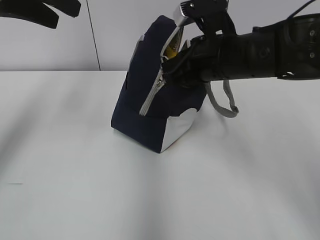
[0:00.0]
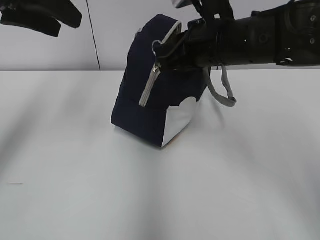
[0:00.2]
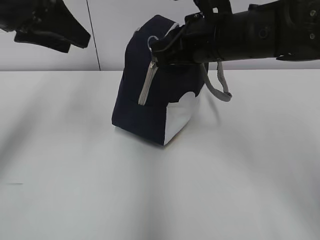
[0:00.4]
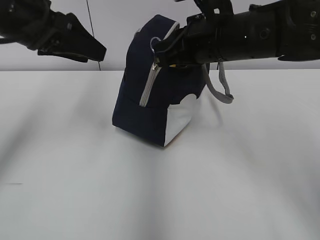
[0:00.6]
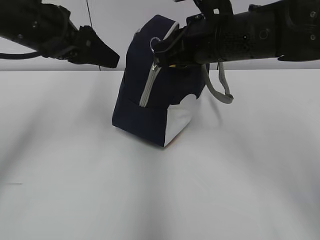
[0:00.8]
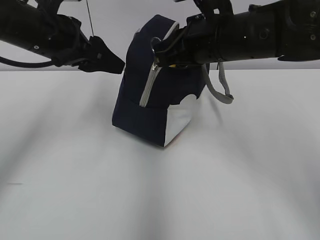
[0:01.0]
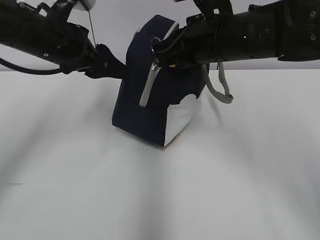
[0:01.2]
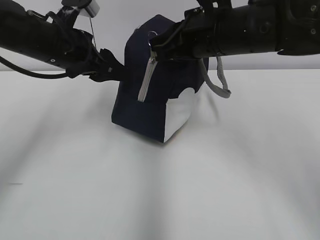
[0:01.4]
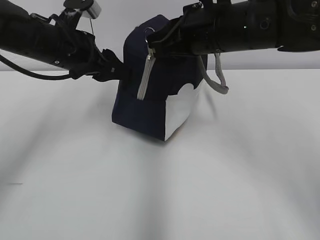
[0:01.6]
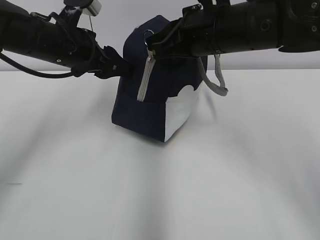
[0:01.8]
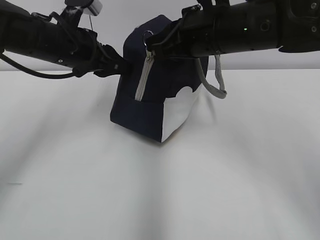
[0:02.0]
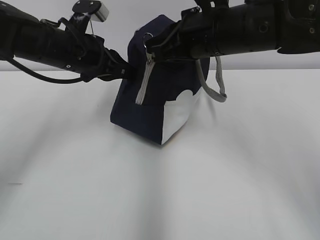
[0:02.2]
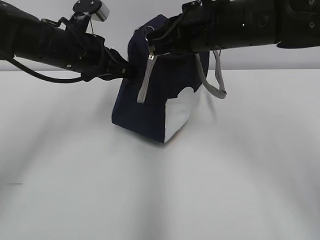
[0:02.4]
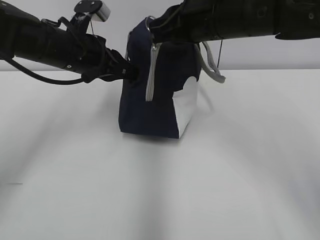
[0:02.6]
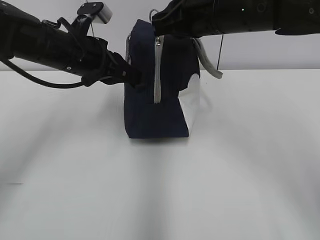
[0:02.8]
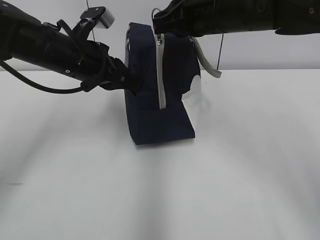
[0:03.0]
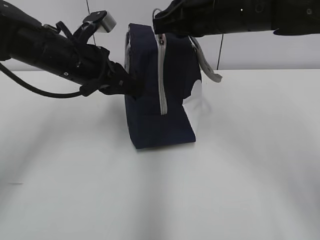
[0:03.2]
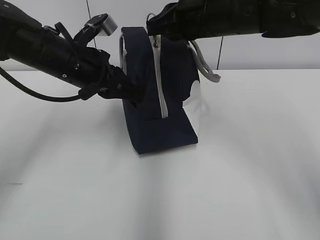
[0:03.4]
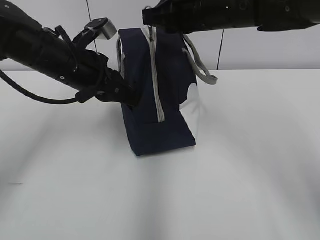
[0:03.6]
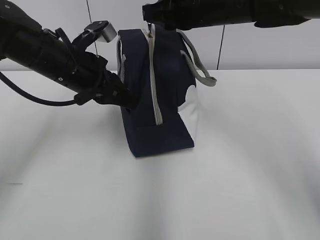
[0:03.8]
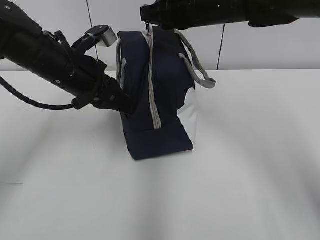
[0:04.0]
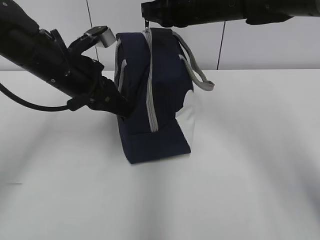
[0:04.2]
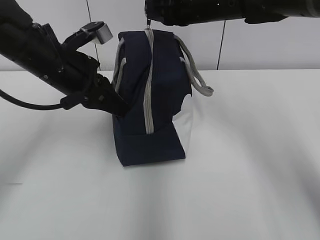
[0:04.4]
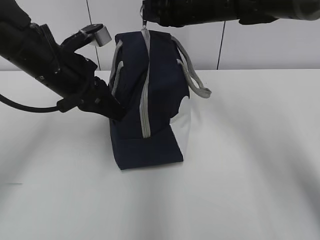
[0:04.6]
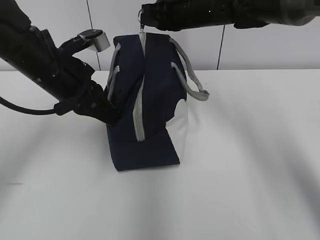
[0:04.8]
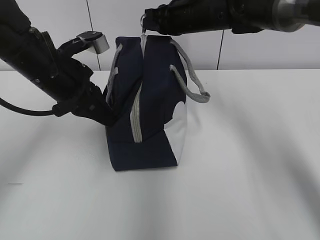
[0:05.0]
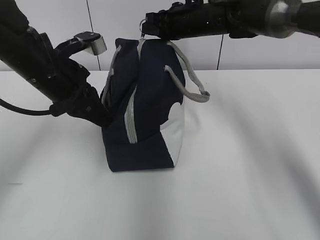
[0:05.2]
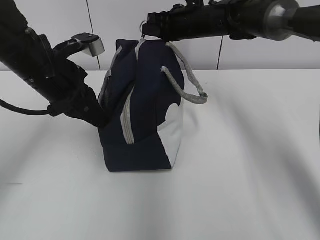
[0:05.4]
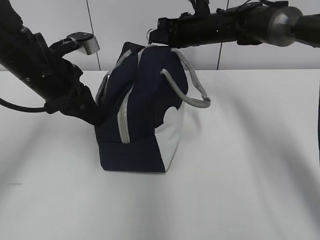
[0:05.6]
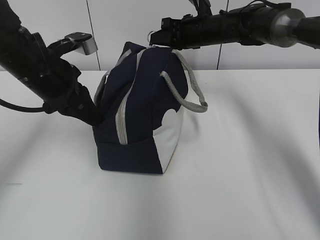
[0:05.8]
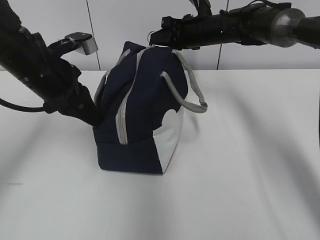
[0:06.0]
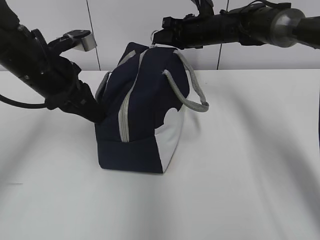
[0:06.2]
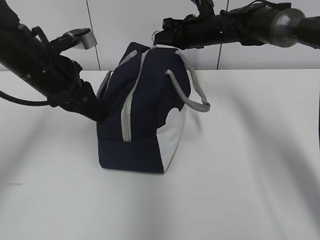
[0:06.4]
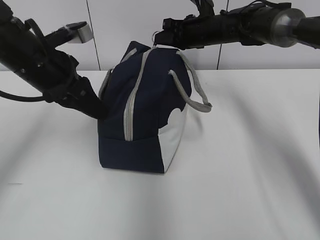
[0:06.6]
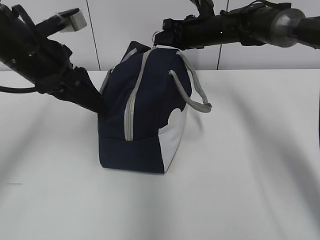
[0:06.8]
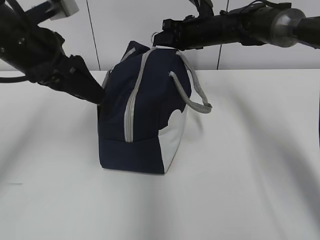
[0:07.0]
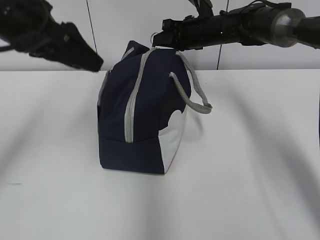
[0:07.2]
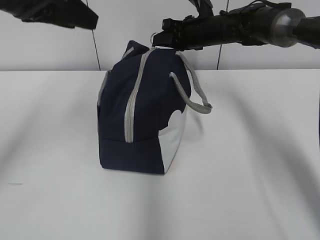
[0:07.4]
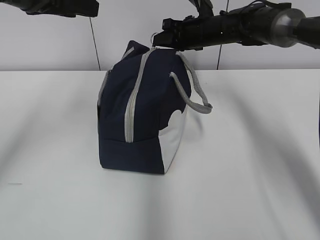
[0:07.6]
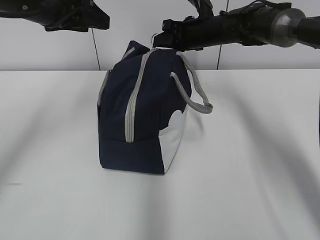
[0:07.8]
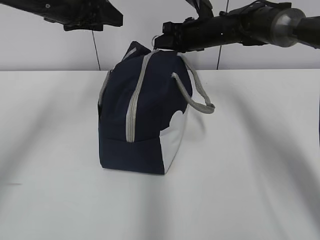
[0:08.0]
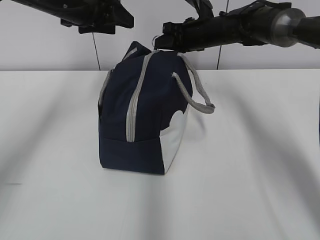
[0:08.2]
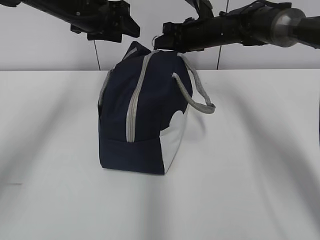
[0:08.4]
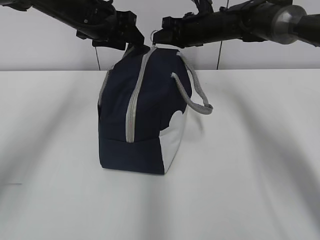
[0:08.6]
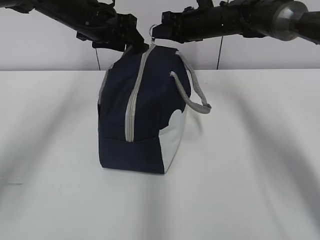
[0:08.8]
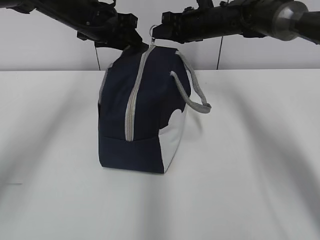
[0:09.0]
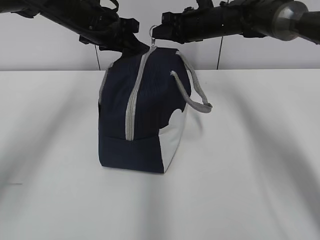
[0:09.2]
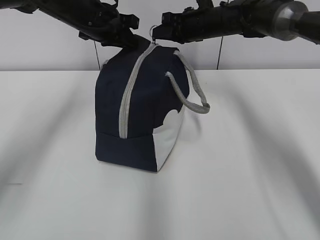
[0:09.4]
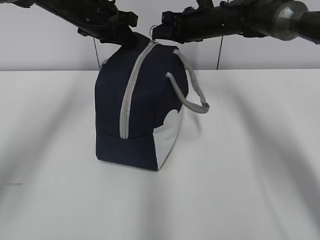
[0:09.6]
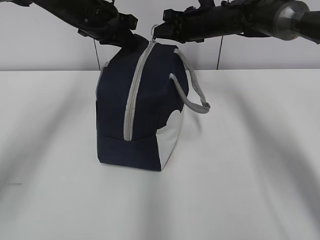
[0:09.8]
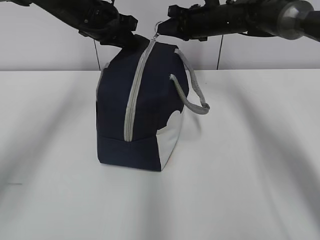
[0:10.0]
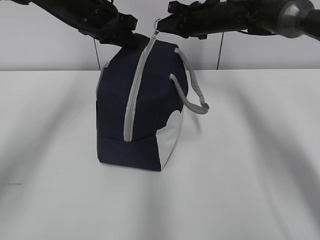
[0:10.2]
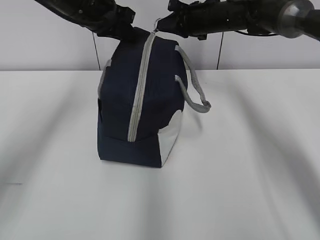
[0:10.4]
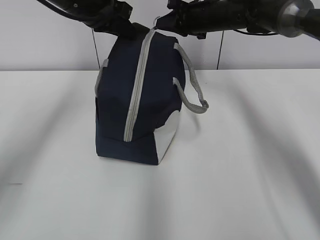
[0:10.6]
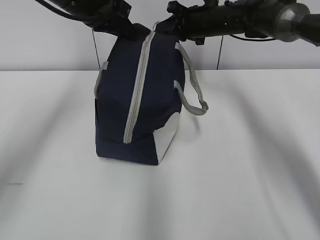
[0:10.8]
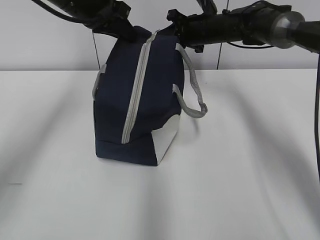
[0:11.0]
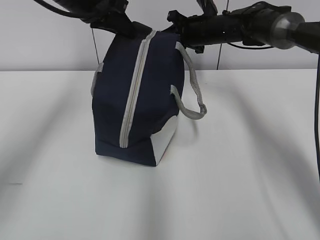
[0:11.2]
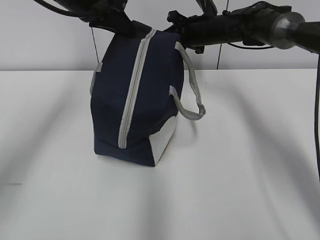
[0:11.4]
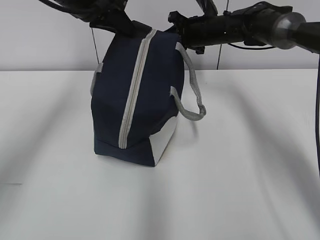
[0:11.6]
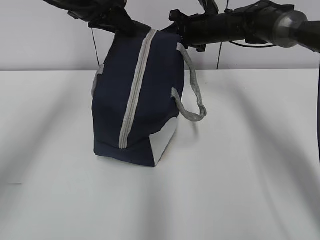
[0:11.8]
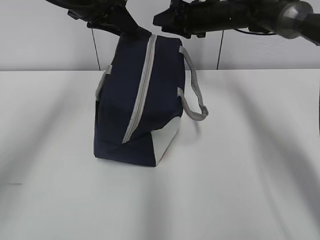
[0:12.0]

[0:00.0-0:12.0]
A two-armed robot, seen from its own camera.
0:00.0 to 0:01.6: The left gripper shifts some 15 cm downward.
0:01.6 to 0:03.0: The left gripper closes up.
0:03.0 to 0:04.4: The right gripper shifts roughly 10 cm forward.
0:04.4 to 0:06.0: The right gripper travels forward and downward by approximately 10 cm.
0:06.0 to 0:07.6: The left gripper travels upward by roughly 10 cm, and opens.
0:07.6 to 0:09.0: The left gripper is displaced forward, downward and to the right by about 15 cm.
0:09.0 to 0:10.4: The left gripper closes.
0:10.4 to 0:12.0: The right gripper opens up. The left gripper opens its fingers.

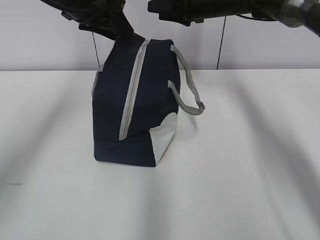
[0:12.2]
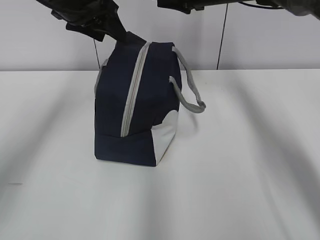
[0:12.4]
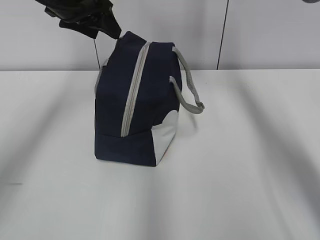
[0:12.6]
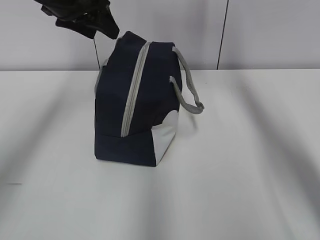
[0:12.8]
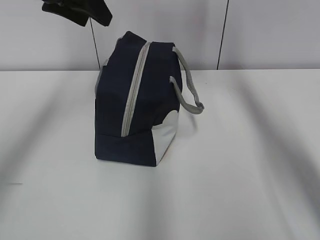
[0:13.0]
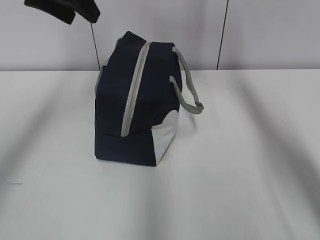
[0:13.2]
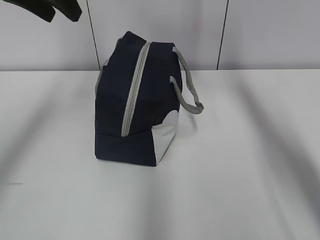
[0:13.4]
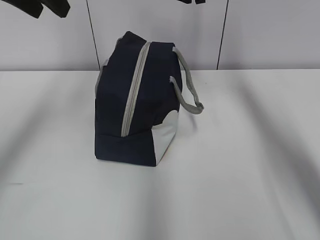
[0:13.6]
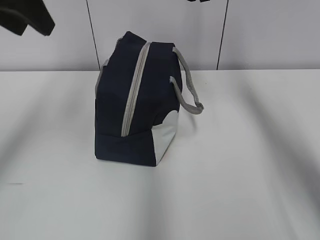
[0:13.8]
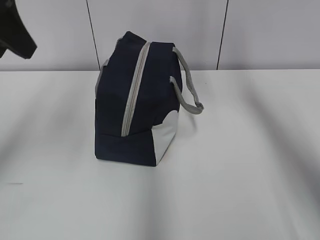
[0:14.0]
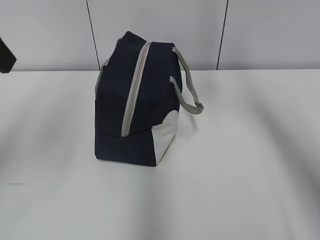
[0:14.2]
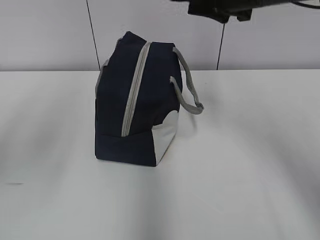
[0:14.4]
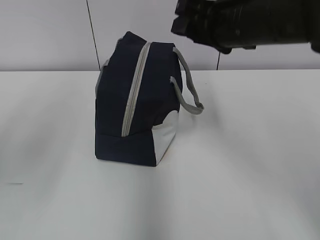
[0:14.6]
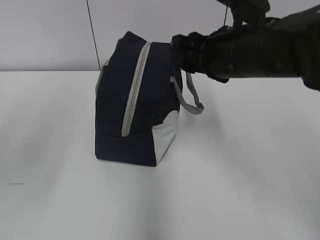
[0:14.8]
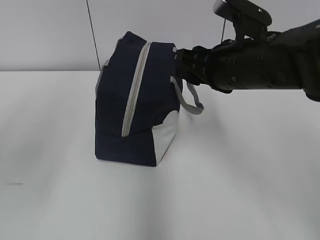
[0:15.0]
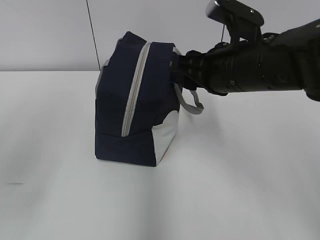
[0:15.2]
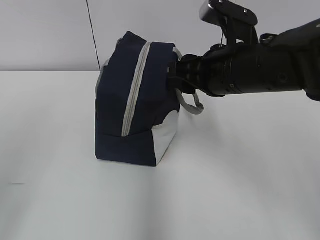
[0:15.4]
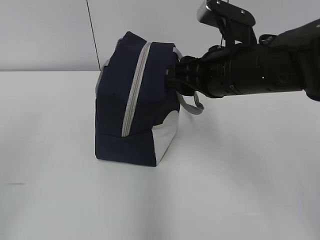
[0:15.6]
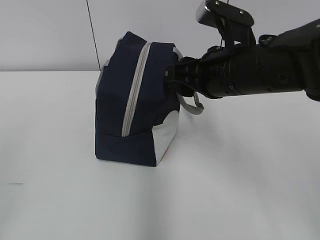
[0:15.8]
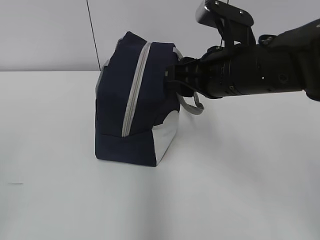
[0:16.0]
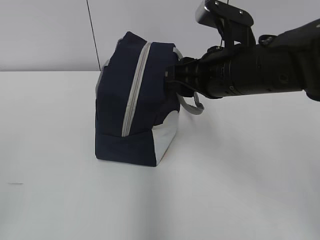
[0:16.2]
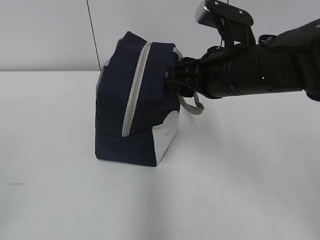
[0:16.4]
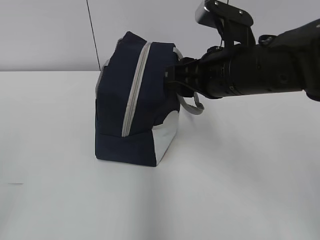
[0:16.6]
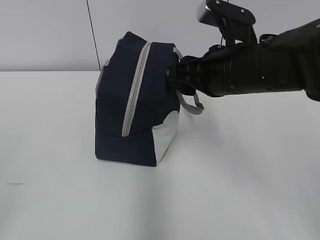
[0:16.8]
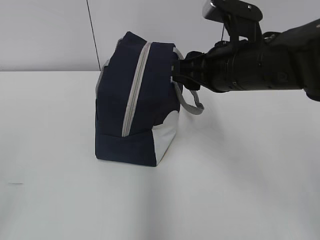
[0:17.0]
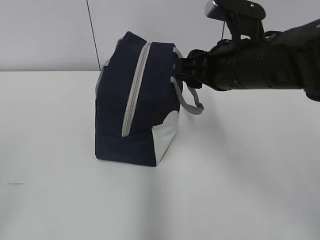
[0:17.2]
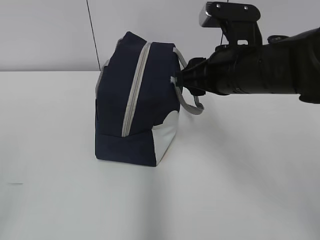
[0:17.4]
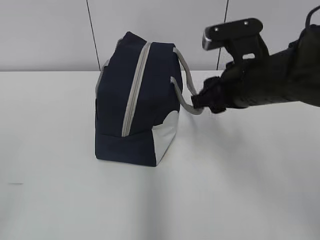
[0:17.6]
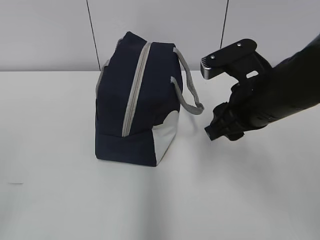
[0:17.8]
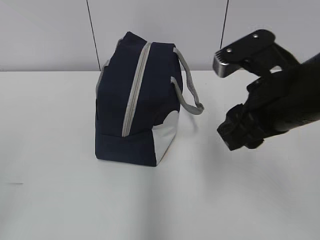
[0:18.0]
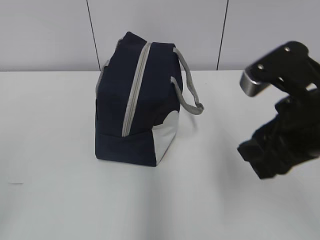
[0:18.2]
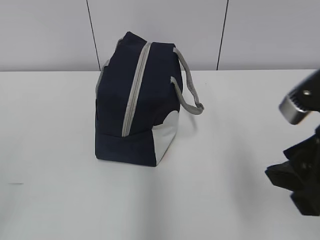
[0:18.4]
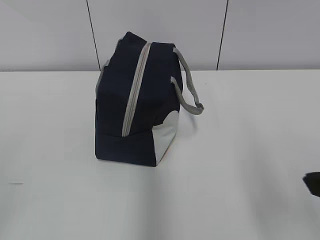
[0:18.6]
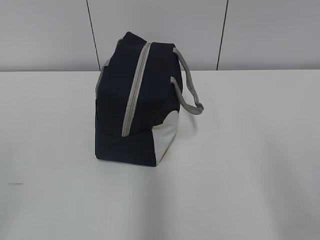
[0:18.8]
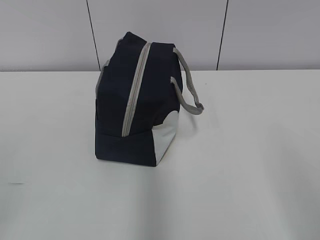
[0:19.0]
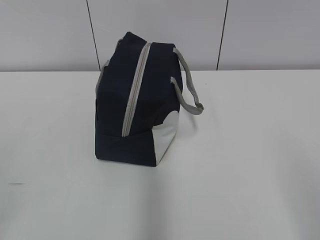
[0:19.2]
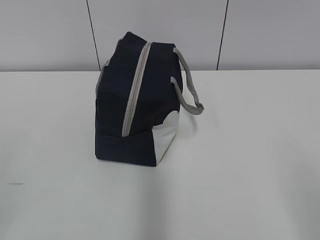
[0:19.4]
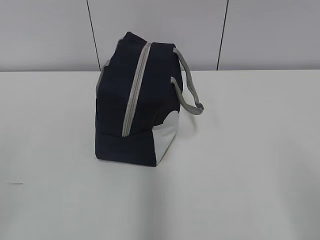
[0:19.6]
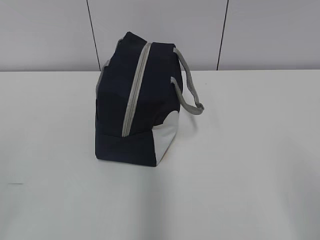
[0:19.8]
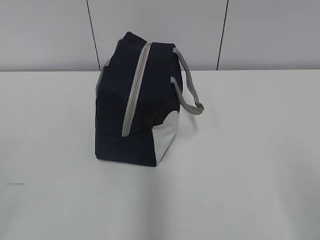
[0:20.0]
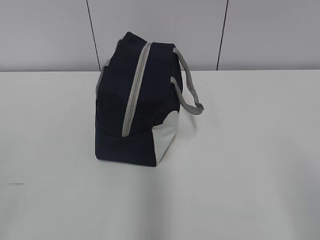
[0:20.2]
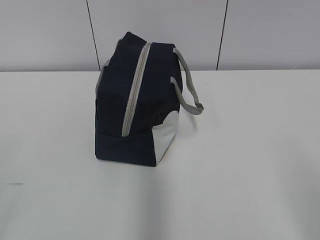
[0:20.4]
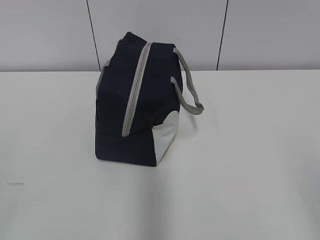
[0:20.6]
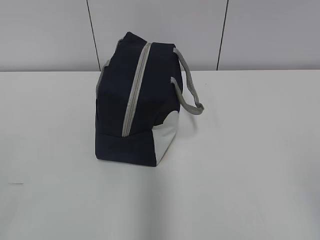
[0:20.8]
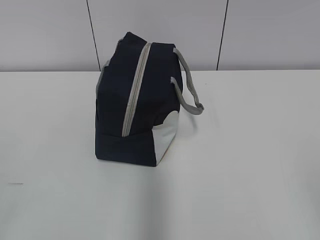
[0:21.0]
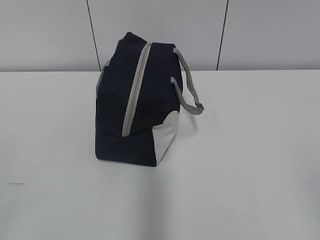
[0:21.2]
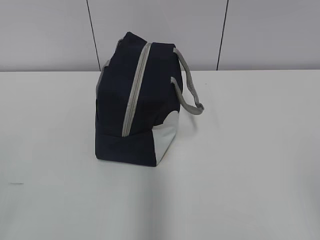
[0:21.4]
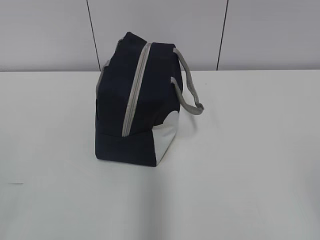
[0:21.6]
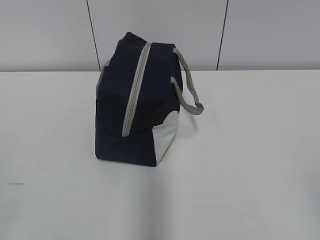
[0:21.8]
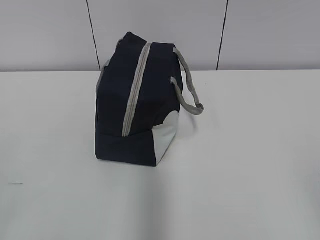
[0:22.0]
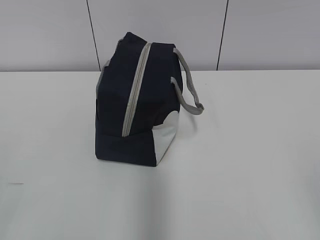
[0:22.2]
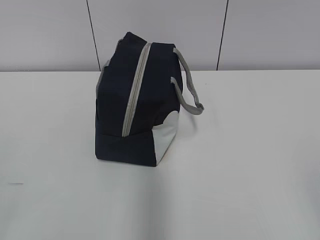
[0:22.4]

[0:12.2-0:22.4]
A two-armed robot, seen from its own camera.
0:12.2 to 0:13.6: The right gripper travels upward by about 5 cm, while the left gripper is displaced upward, backward and to the left by roughly 15 cm.
0:13.6 to 0:15.2: The right gripper travels backward and downward by approximately 20 cm. The left gripper goes roughly 20 cm backward.
0:15.2 to 0:16.6: The left gripper is displaced backward and downward by approximately 20 cm.
0:16.6 to 0:18.0: The right gripper is displaced backward by roughly 5 cm.
0:18.0 to 0:19.4: The right gripper heads backward and to the right, covering approximately 25 cm.
0:21.0 to 0:22.4: Both grippers stay about where they are.
